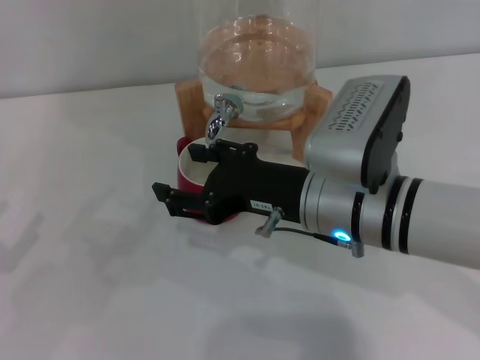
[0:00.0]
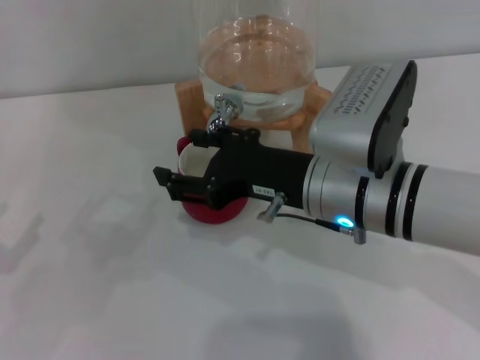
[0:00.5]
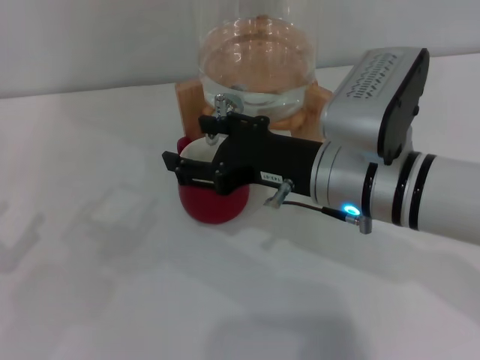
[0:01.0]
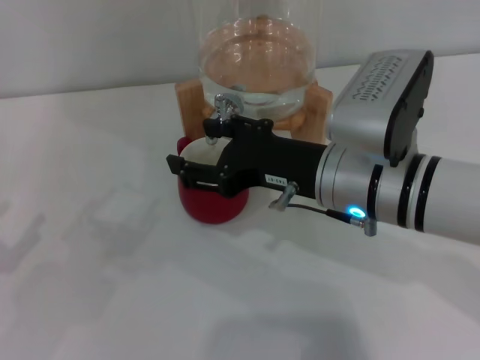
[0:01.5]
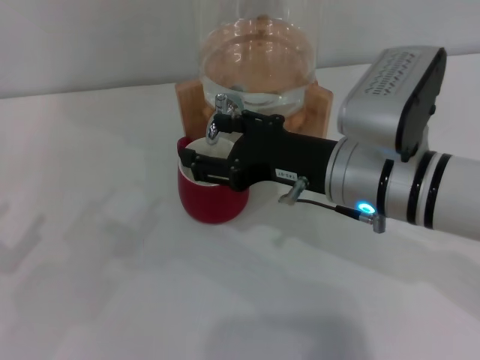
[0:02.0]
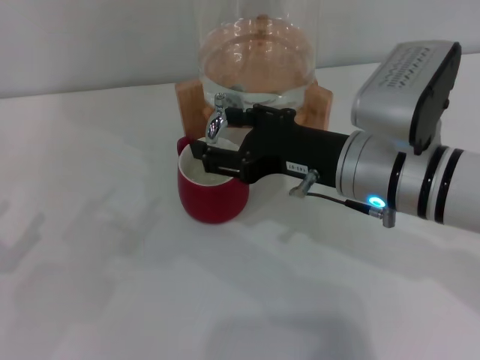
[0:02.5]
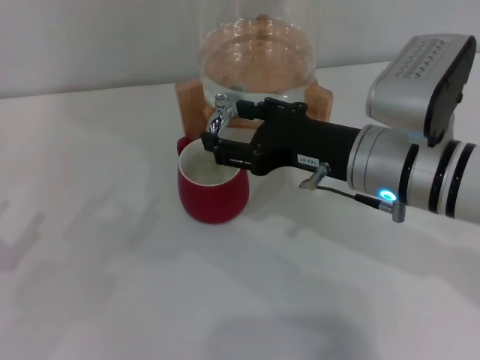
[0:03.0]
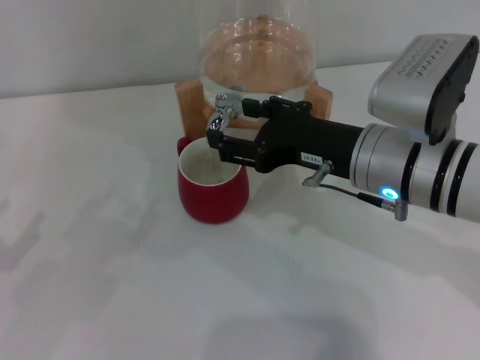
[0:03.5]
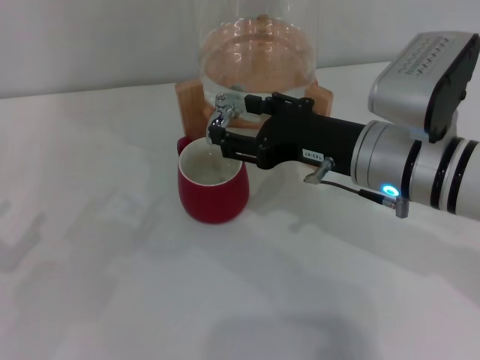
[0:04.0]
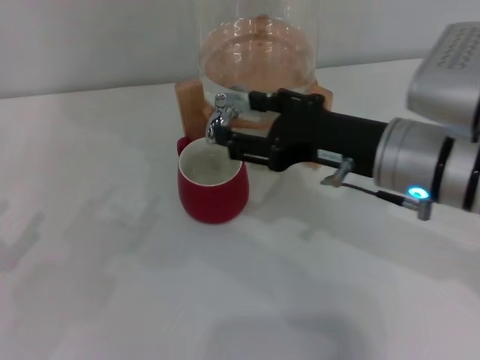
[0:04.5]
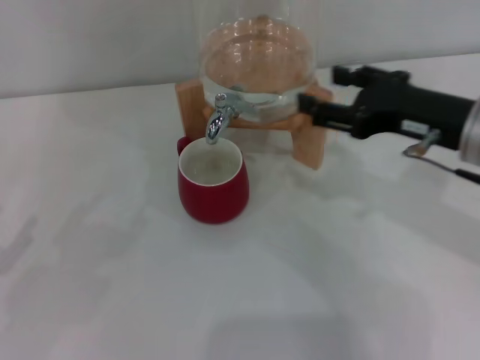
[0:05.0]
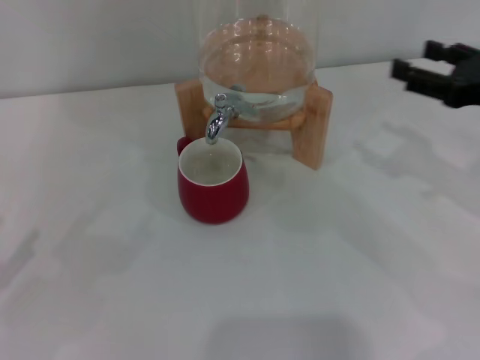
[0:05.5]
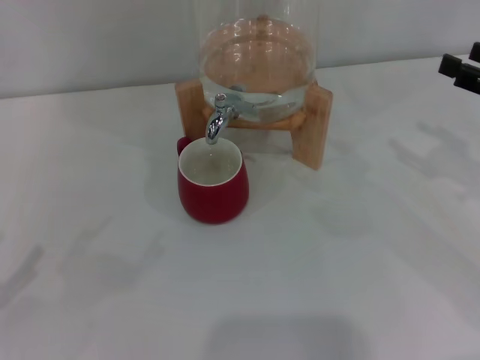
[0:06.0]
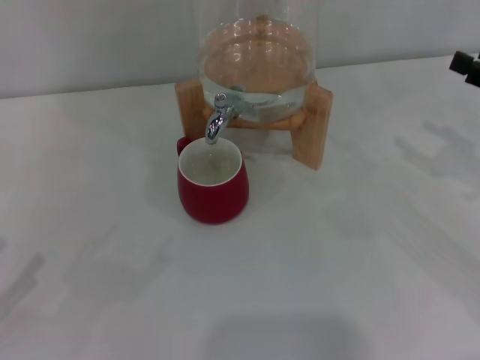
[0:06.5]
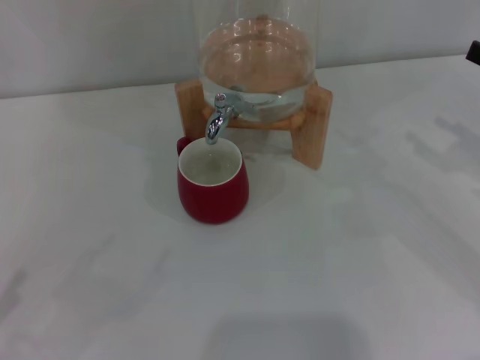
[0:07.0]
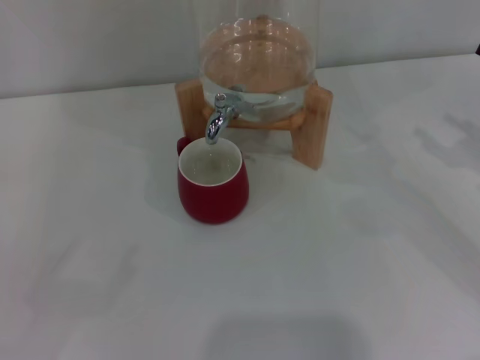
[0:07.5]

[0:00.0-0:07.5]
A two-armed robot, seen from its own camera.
Task of the whole recording: the left gripper pick up the red cup and place it horizontally under the faucet, the right gripper turn on the faucet to fill the cup, and then turn off the faucet.
Step, 0:00.0 to 0:04.5: Close the dispenser valve with the right gripper.
0:00.0 to 0:04.0: The grippers make only small movements.
0:04.0 to 0:05.5: The right gripper moves to the right, some 15 cm.
0:05.5 to 0:07.5: The right gripper travels to the right by about 5 cm.
